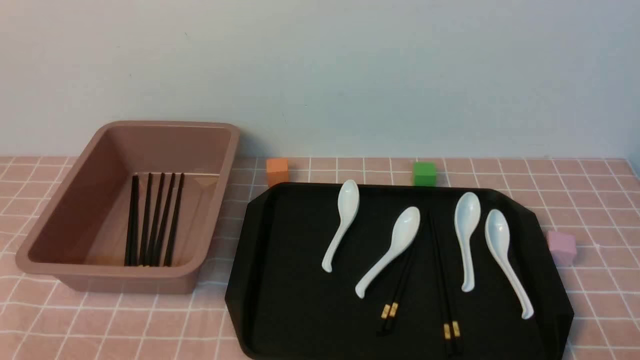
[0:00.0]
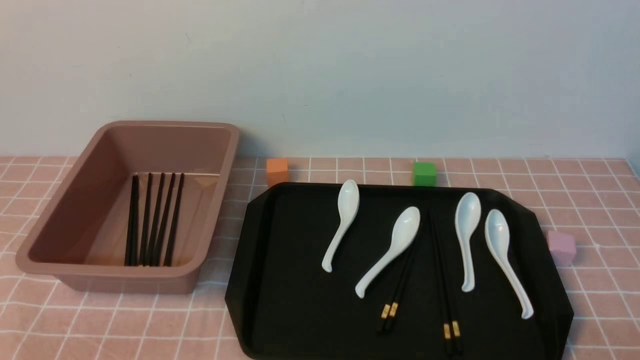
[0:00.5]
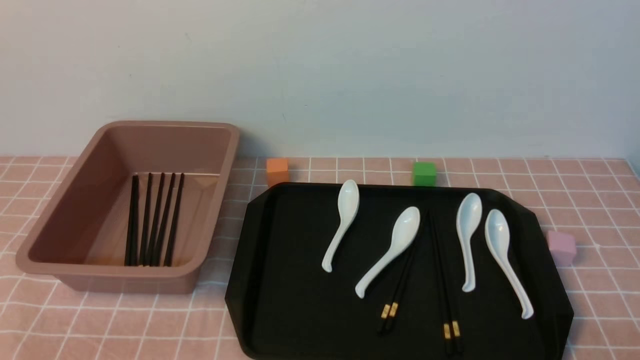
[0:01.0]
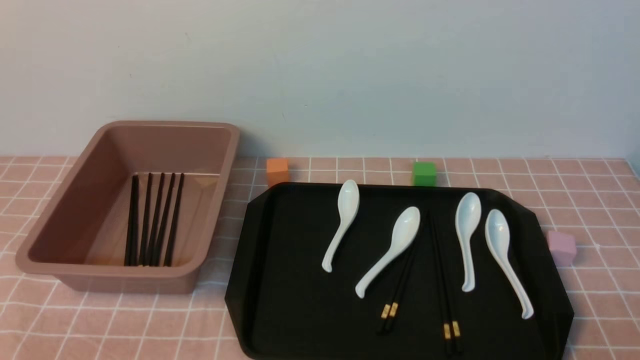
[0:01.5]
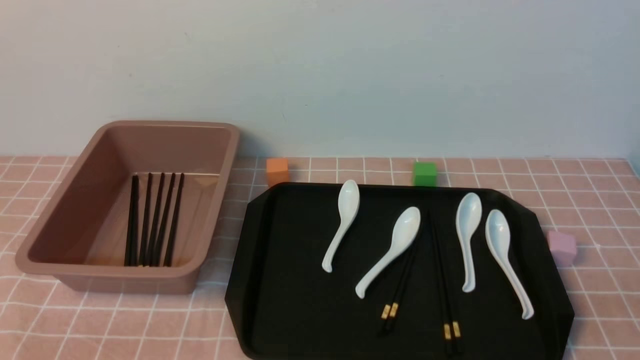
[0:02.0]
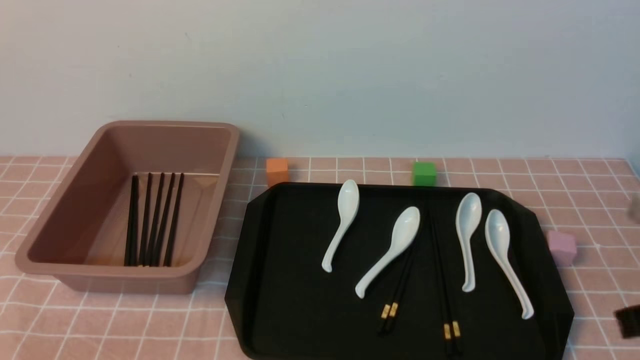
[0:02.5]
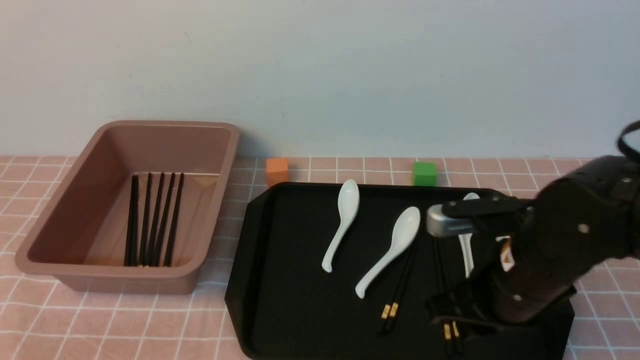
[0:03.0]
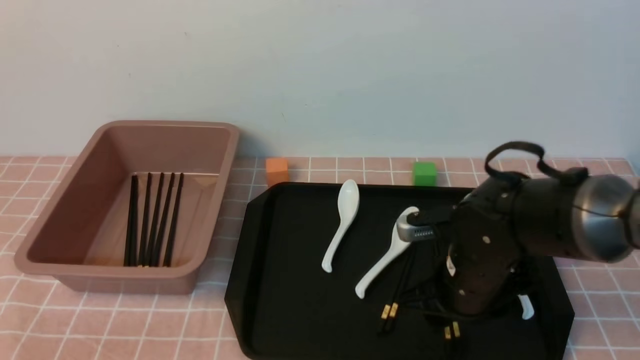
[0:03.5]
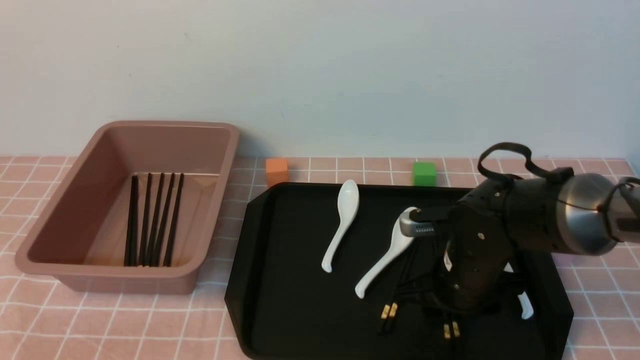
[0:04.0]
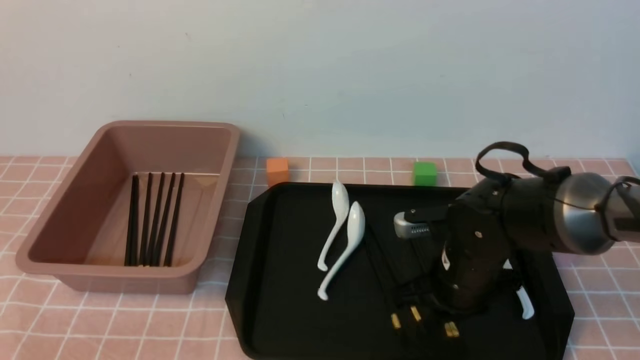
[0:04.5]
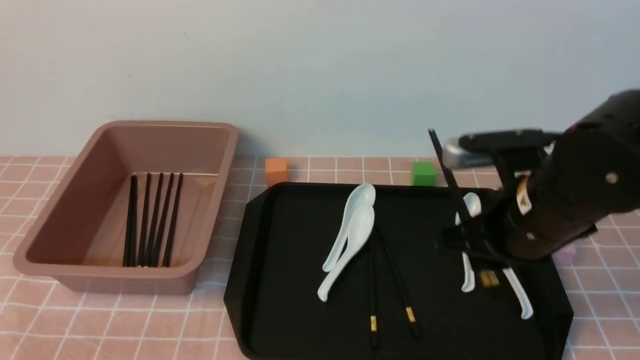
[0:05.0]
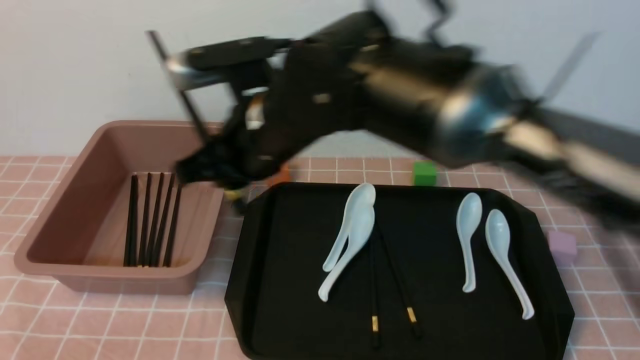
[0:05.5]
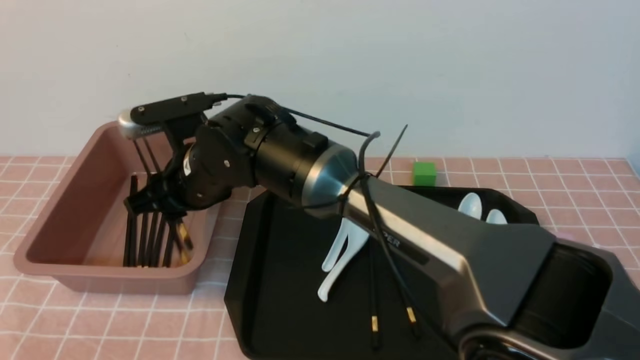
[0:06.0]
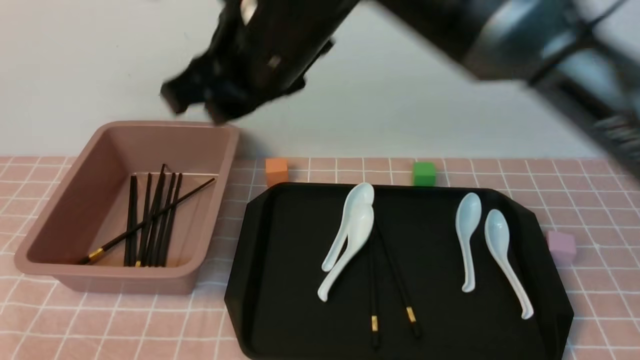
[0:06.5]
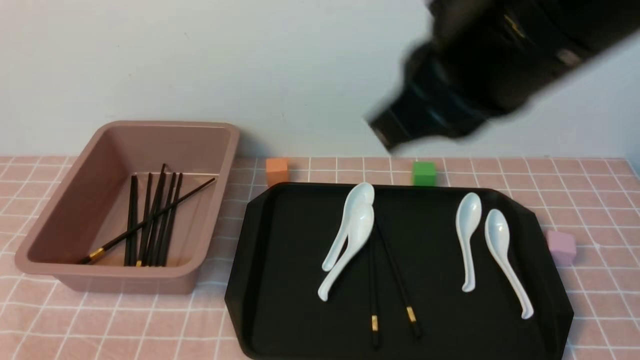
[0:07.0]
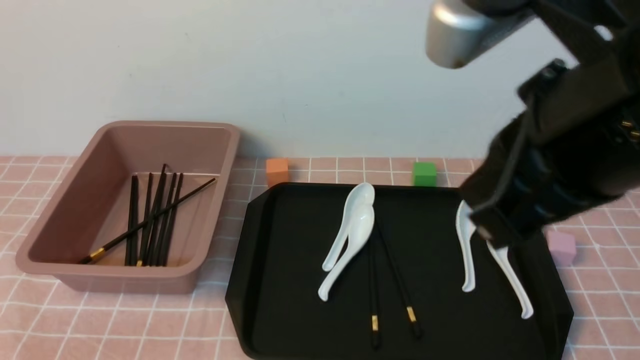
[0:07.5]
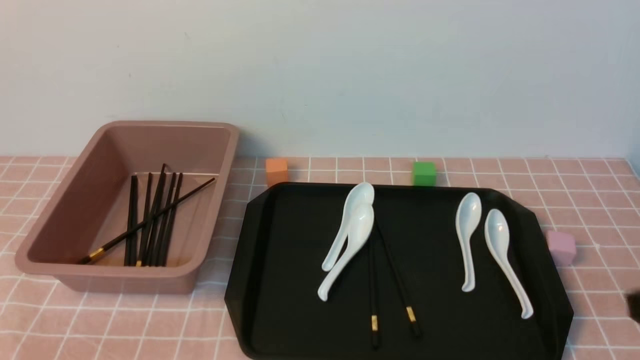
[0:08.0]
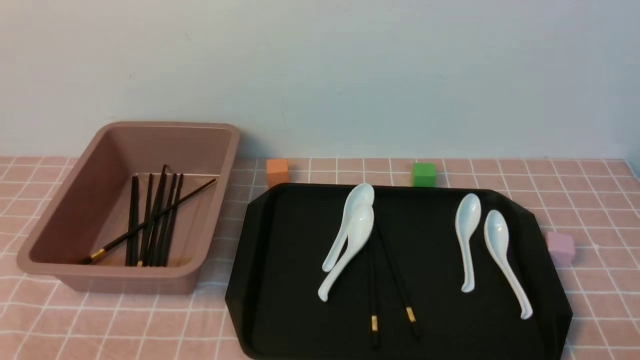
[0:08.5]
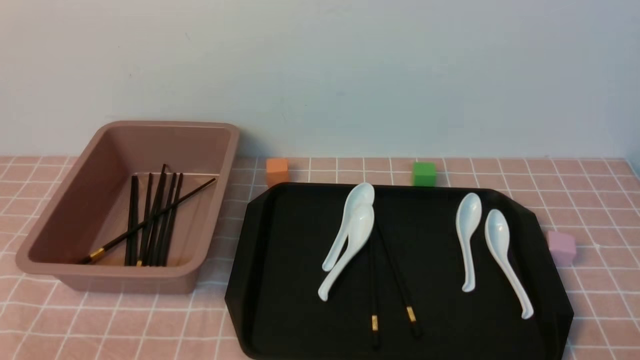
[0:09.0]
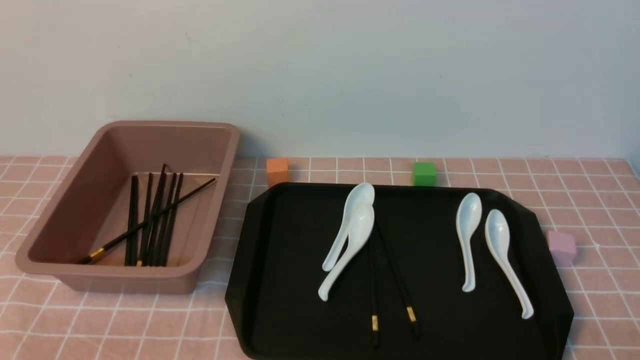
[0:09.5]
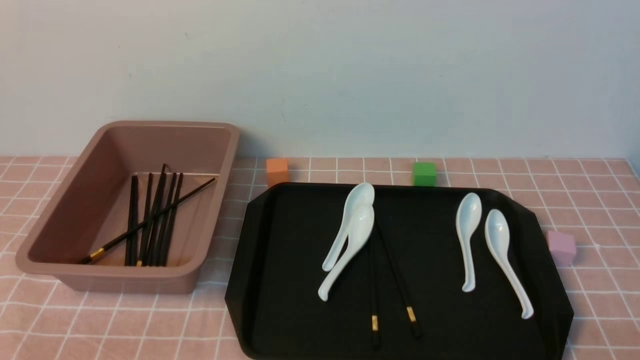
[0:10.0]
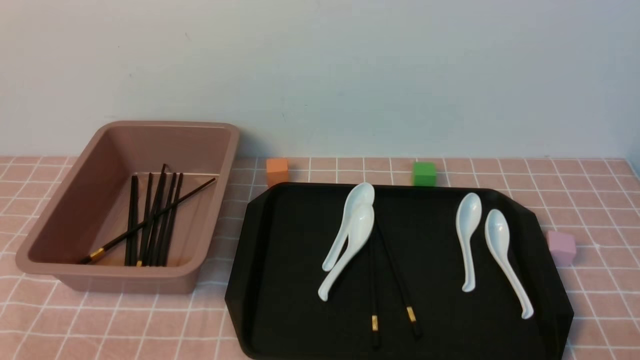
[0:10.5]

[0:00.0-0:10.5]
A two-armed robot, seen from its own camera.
Step, 0:00.0 to 0:04.5: use the right arm to grab a pair of chopsticks.
Step, 0:05.0 to 0:06.0: use the right arm to put the chopsticks into the lunch box.
0:02.0 to 0:04.0: The right gripper goes roughly 30 cm forward, to the left and downward, and opens.
0:04.0 to 0:06.5: The right gripper goes up and down, about 30 cm each way, reversing 2 times.
0:06.5 to 0:08.5: The right gripper shifts about 50 cm to the right, downward and backward, and closes up.
0:08.5 to 0:10.5: Both grippers stay about where they are.
